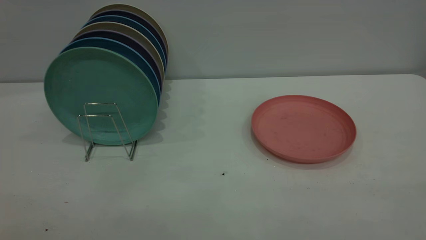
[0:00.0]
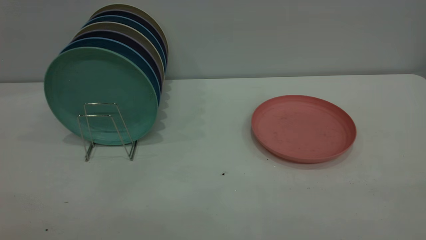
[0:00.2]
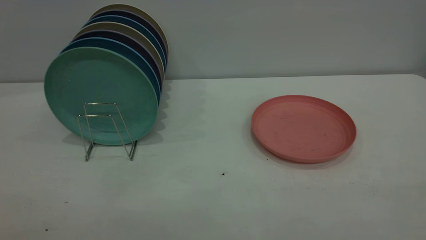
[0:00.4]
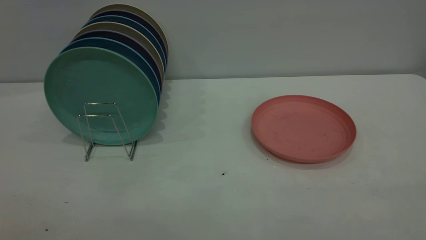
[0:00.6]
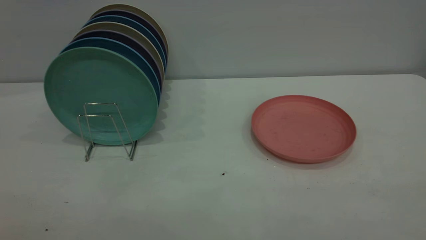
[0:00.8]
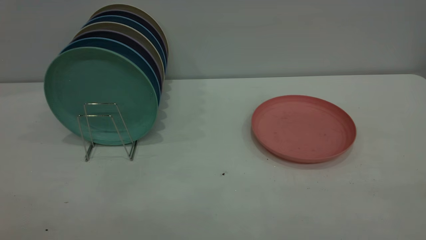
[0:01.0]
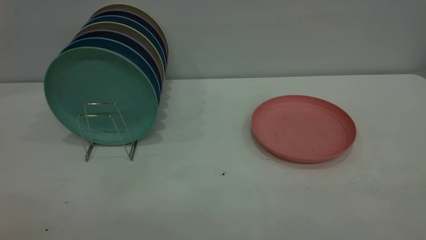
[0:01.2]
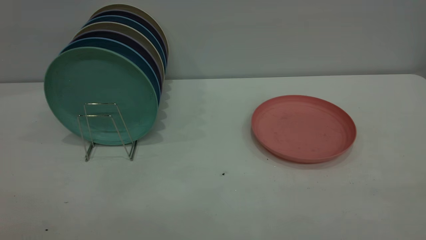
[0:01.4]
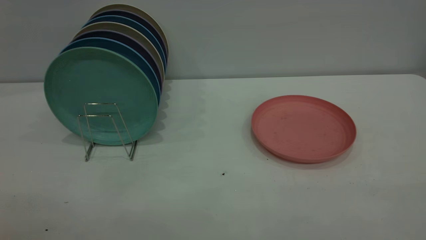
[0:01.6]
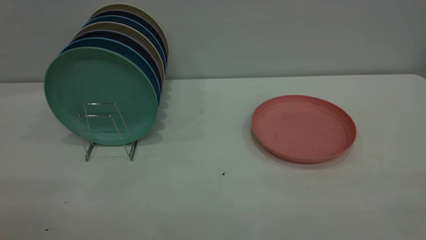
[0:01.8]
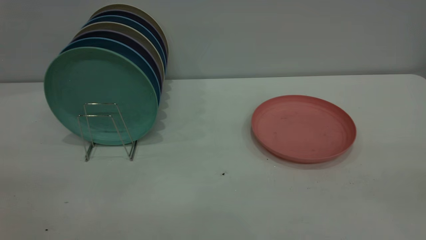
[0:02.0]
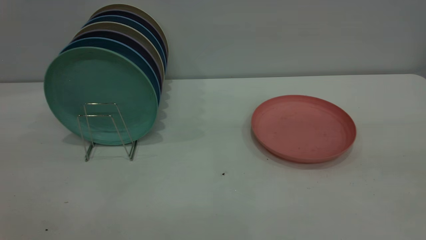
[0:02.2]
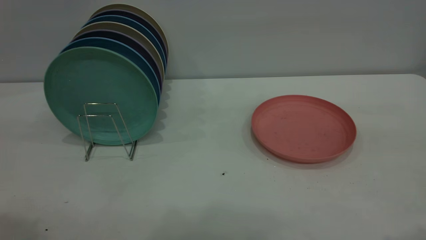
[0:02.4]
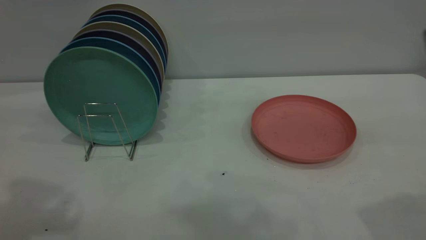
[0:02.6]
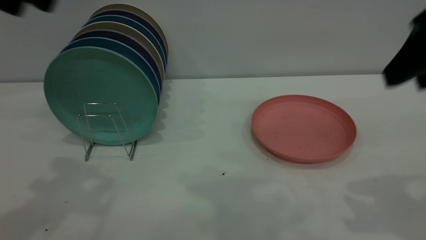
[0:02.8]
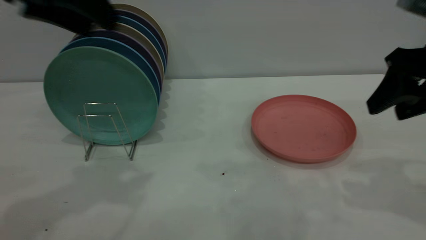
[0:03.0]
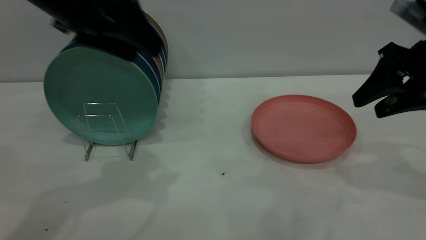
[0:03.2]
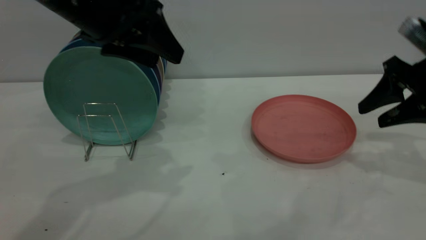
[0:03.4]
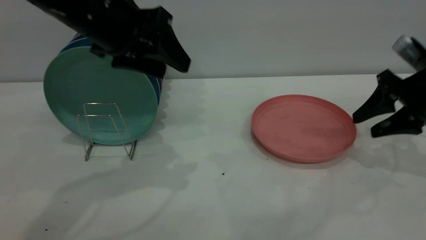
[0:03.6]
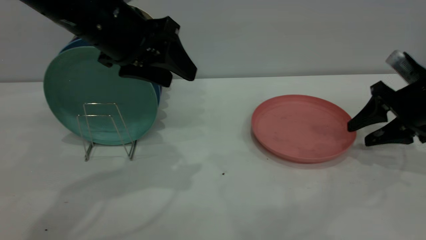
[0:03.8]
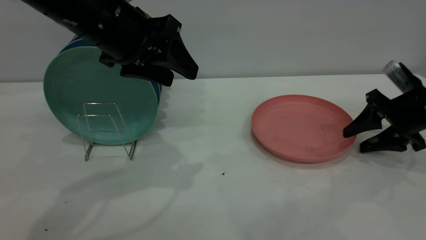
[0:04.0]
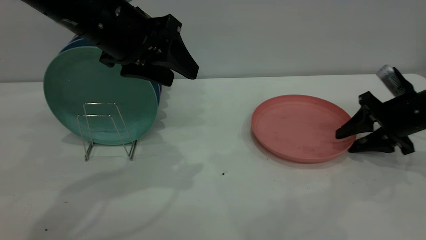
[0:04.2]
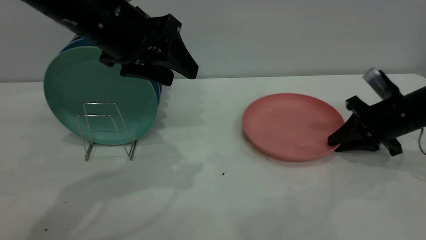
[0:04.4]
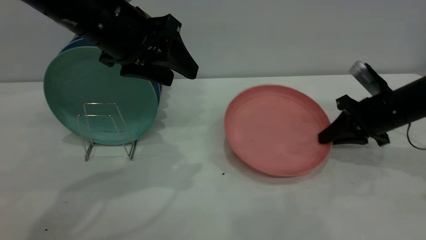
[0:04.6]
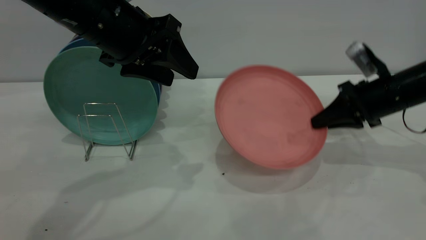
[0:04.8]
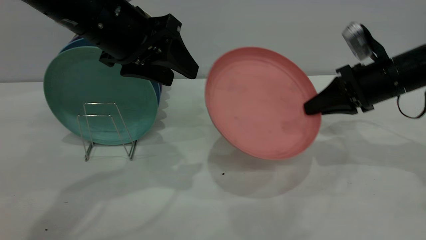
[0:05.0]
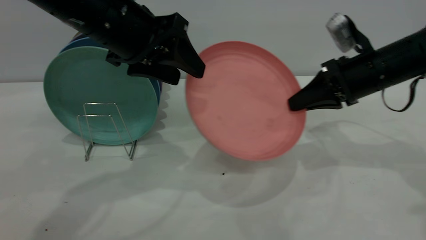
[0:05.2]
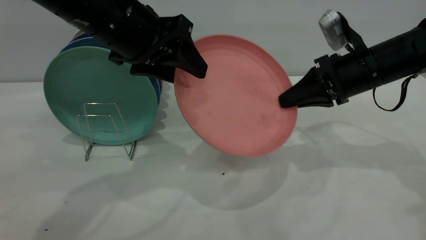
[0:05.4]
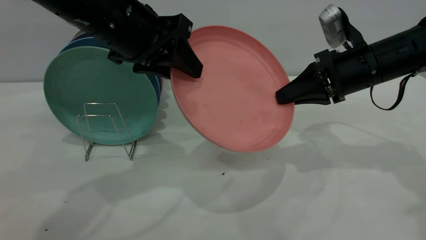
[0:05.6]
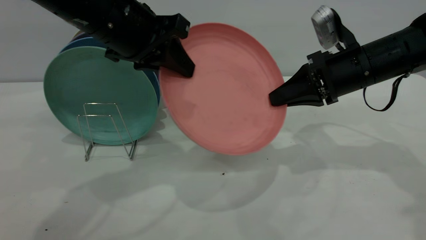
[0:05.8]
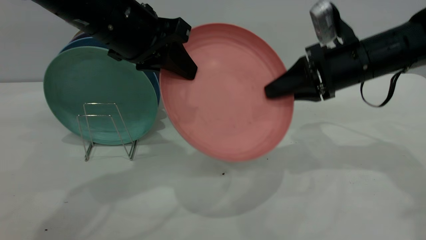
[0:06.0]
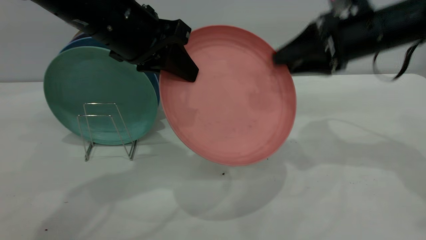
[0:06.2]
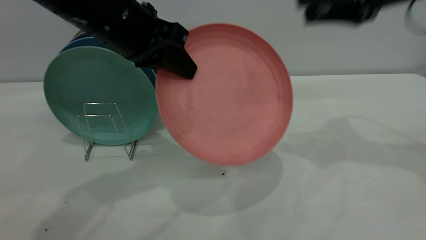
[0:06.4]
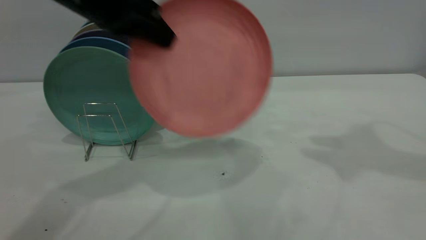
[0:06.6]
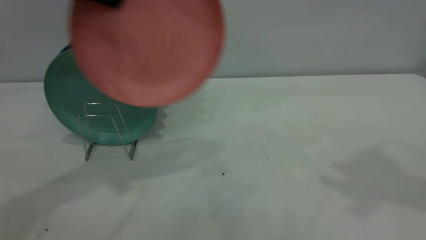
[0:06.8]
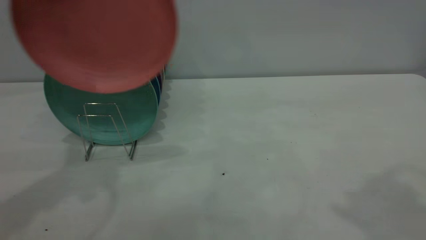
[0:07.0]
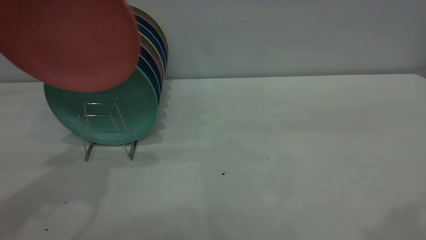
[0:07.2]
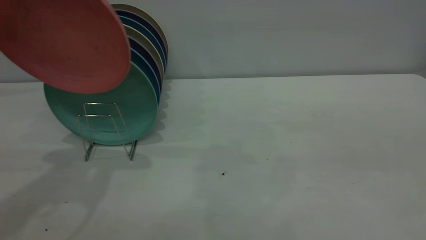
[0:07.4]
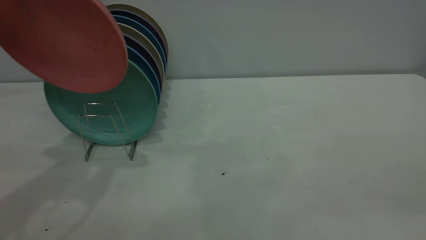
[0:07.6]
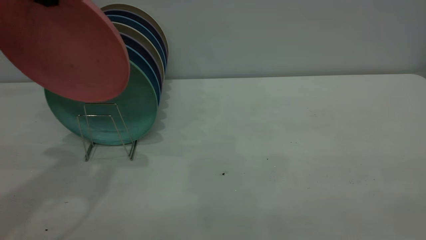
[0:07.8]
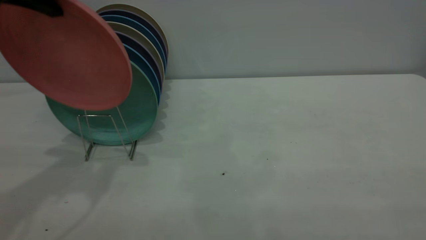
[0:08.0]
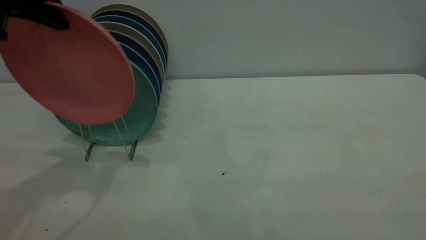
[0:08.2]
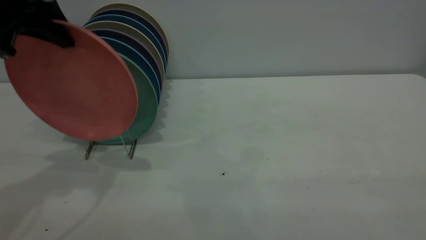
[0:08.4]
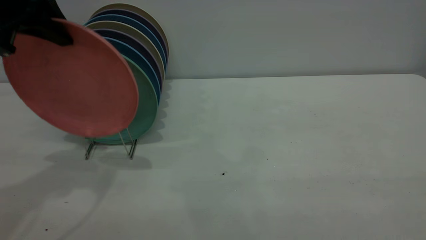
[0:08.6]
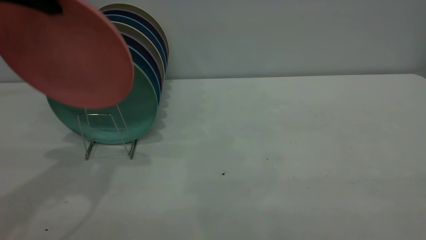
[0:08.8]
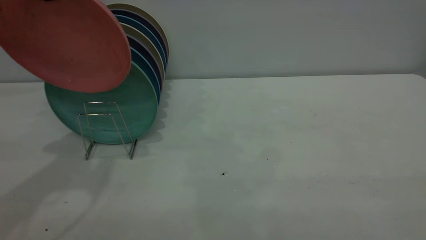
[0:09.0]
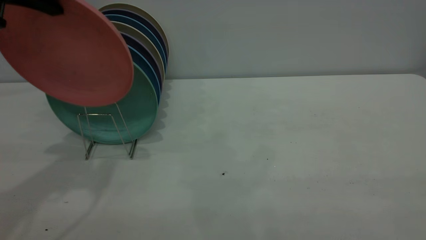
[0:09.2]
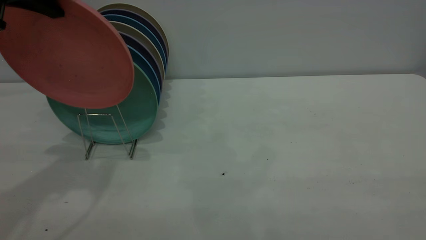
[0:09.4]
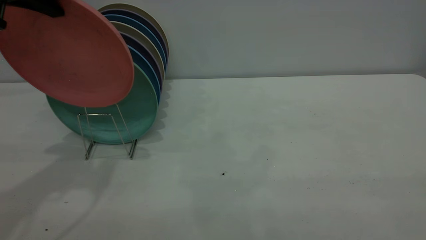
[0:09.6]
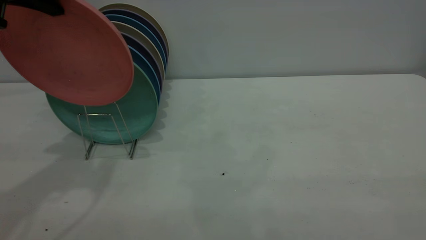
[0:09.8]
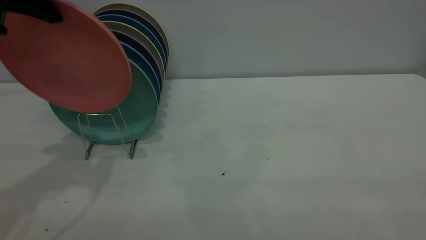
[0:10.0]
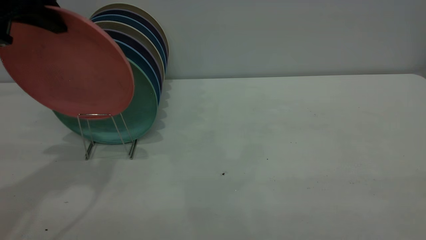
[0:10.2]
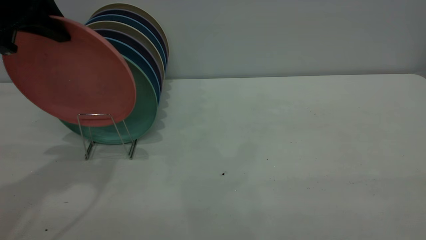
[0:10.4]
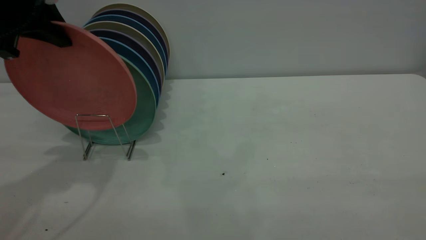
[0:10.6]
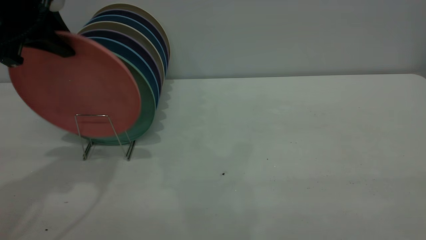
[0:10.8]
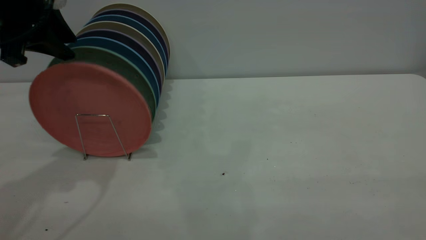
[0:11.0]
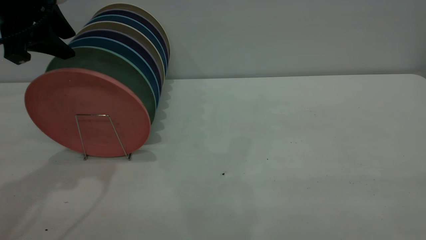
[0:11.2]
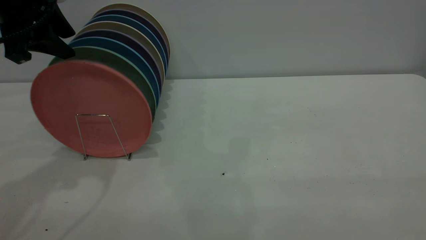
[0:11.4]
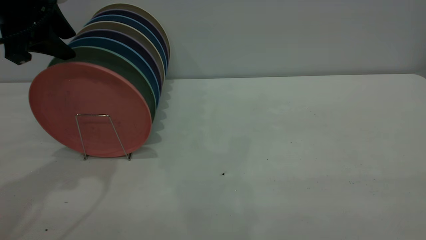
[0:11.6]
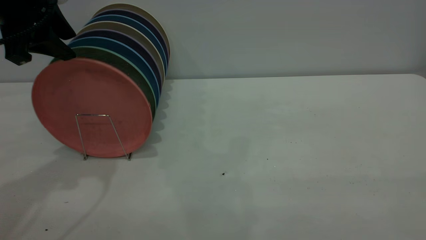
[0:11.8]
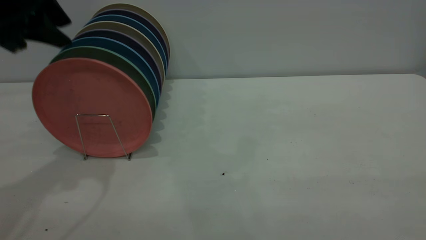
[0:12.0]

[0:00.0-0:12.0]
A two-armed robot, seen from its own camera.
Task of the whole recording: the right gripper grasp the pink plate, the right gripper pass the pink plate to the left gripper, and the left gripper place the pink plate on the plate rack.
Step, 0:00.0 to 0:04.8: Pick up the plate with the right gripper.
Step, 0:05.0 to 0:06.2: Pass the plate from the right gripper to the left gripper.
0:00.0 to 0:01.6: Both grippers stay about where they are.
0:01.6 to 0:03.0: The two grippers go roughly 35 cm forward. The left gripper opens up.
0:03.0 to 0:04.4: The left gripper heads downward and to the right, covering about 10 cm, while the right gripper moves downward and forward, about 20 cm, and closes.
0:04.4 to 0:06.0: The right gripper travels upward and to the left by some 15 cm; the left gripper closes.
0:06.0 to 0:07.6: The left gripper is displaced to the left and upward by about 15 cm, while the right gripper is displaced backward and upward by about 40 cm, and opens, then closes once more.
0:09.0 to 0:10.4: There are only small adjustments of the grippers.
0:10.4 to 0:12.0: The left gripper opens its fingers.

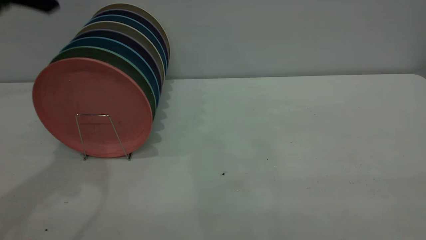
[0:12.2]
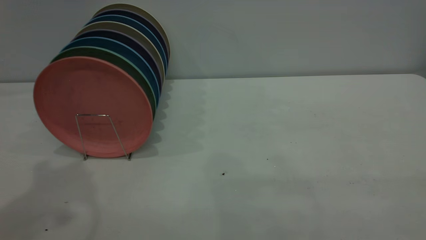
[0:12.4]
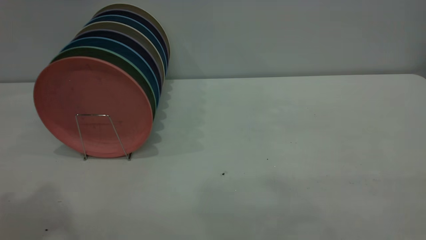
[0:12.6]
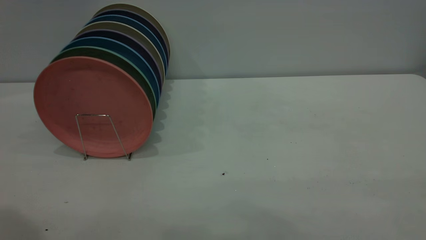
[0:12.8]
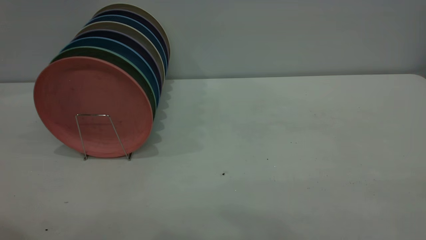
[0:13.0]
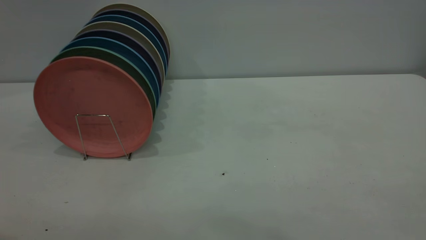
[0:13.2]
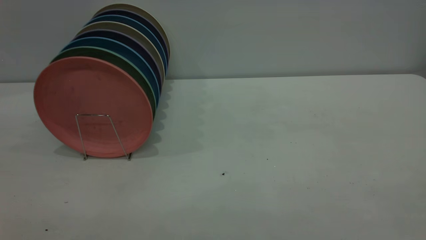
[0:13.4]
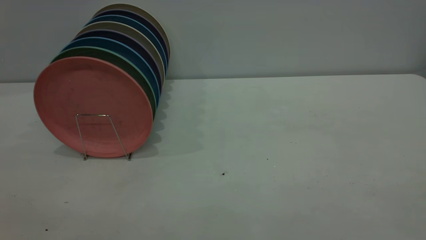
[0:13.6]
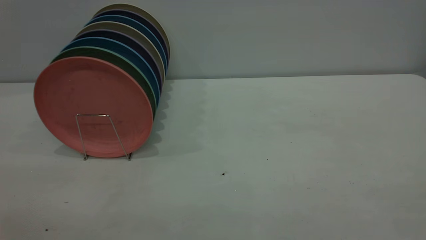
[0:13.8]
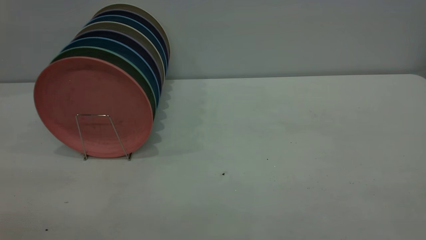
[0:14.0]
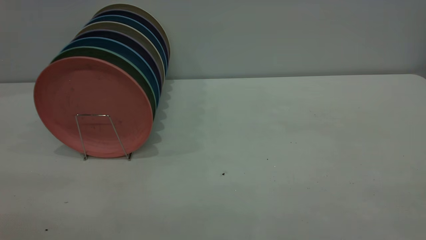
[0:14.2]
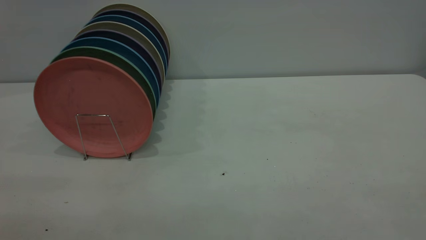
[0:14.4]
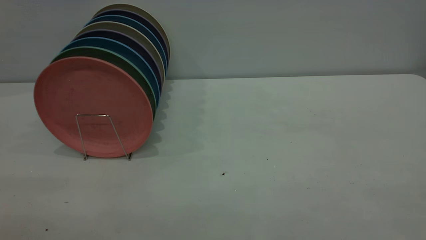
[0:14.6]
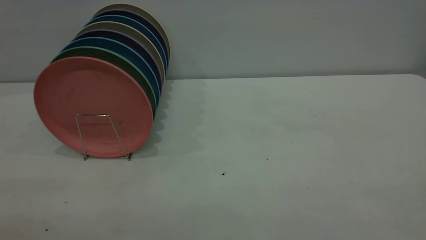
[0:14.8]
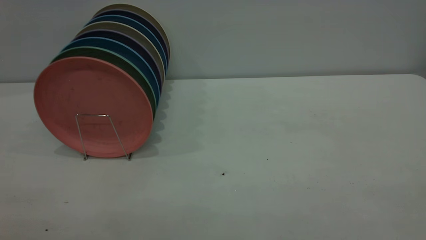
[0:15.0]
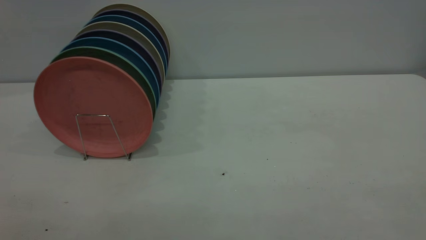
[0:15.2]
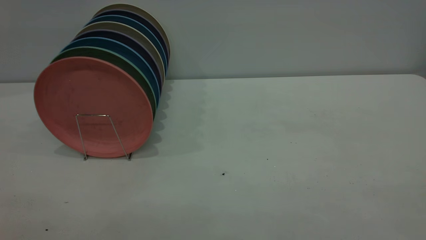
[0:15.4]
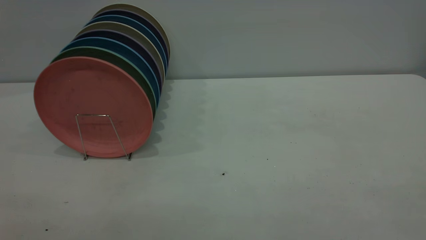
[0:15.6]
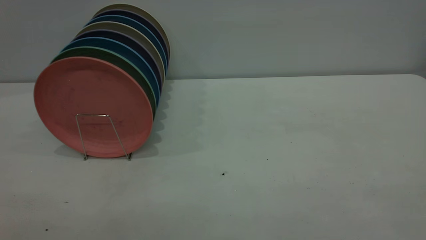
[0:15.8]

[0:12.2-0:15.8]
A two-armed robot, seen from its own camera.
Task of the whole recording: the right gripper grasp the pink plate, the right gripper pass the pink plate to the left gripper, and the left gripper place the pink plate on the plate rack.
0:12.2 to 0:14.0: The left gripper moves backward, some 30 cm.
